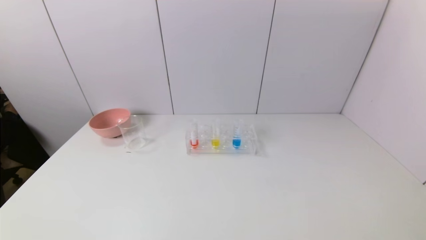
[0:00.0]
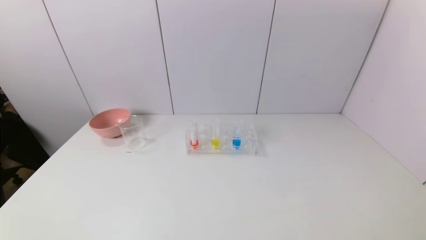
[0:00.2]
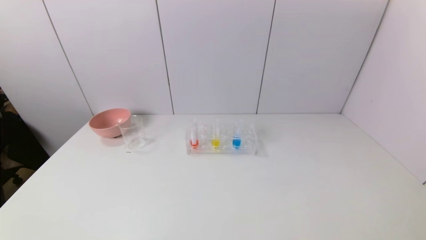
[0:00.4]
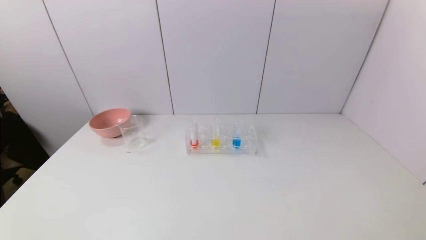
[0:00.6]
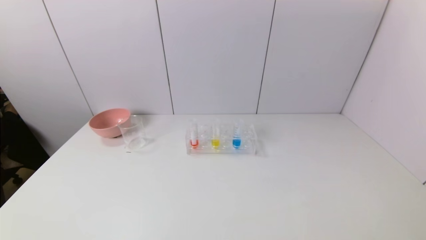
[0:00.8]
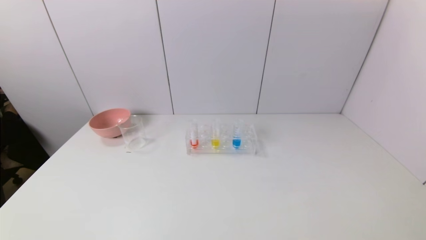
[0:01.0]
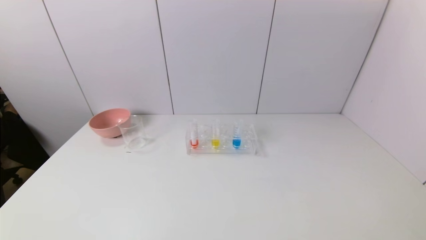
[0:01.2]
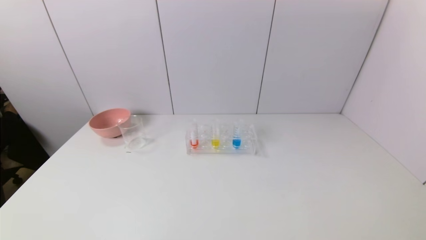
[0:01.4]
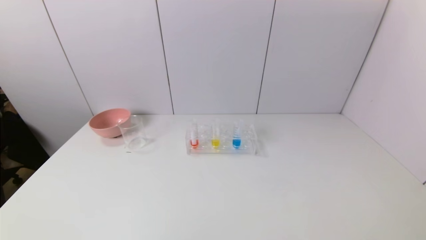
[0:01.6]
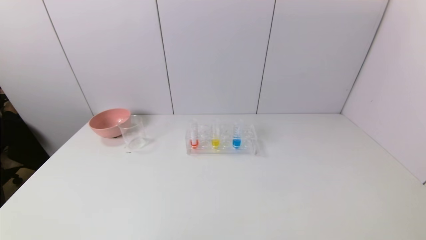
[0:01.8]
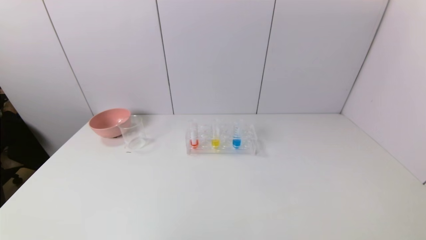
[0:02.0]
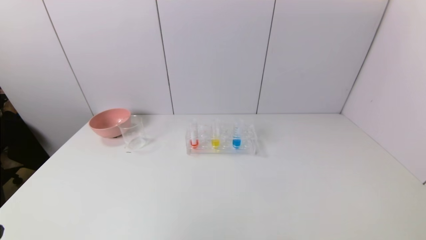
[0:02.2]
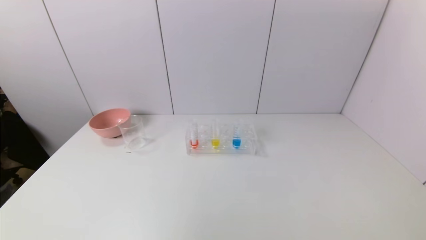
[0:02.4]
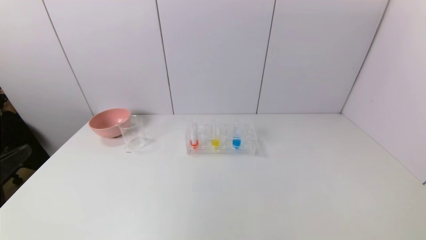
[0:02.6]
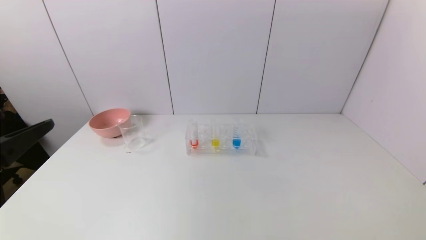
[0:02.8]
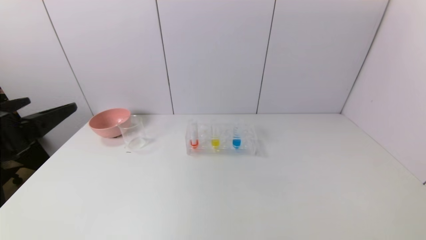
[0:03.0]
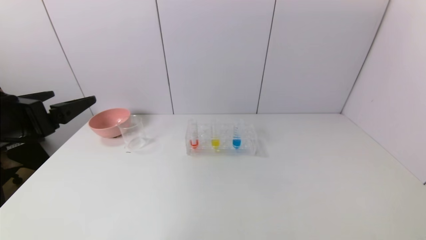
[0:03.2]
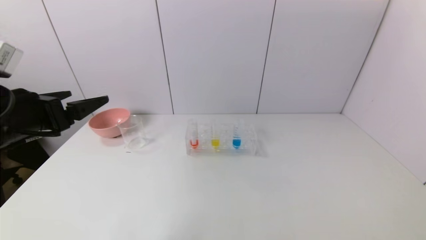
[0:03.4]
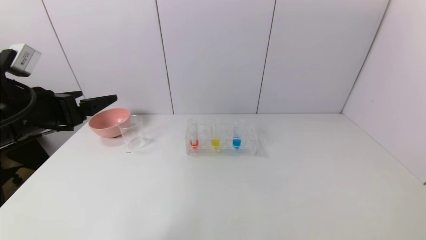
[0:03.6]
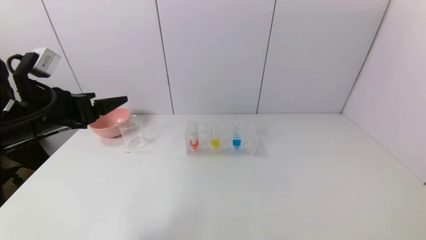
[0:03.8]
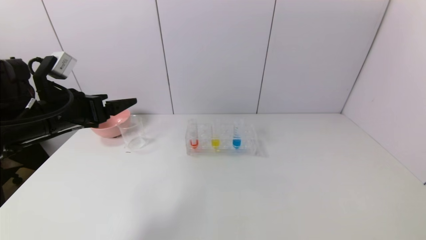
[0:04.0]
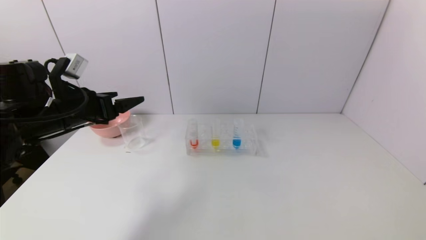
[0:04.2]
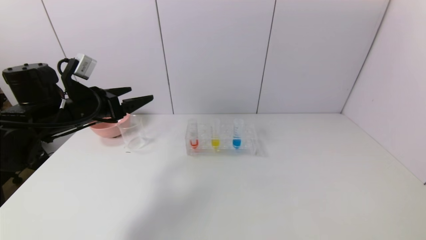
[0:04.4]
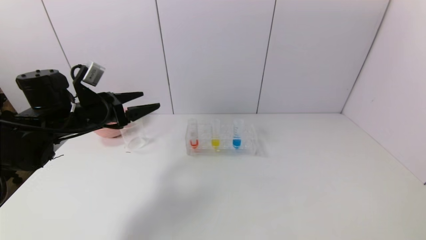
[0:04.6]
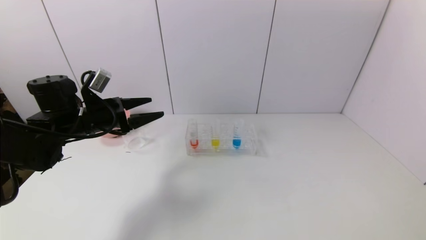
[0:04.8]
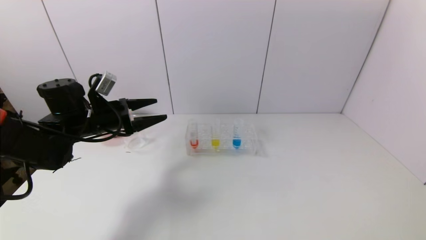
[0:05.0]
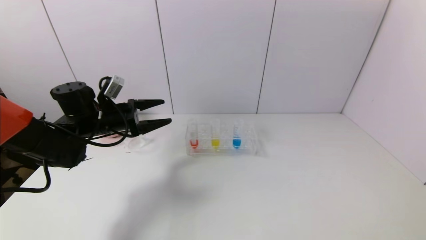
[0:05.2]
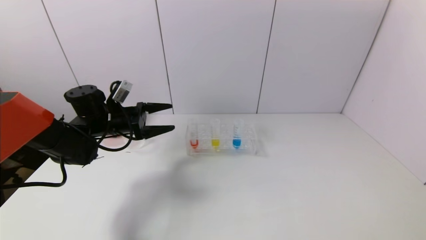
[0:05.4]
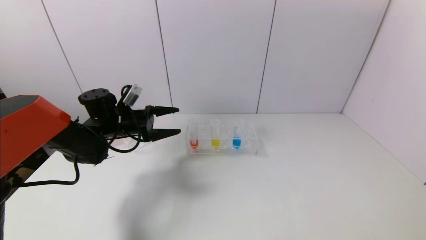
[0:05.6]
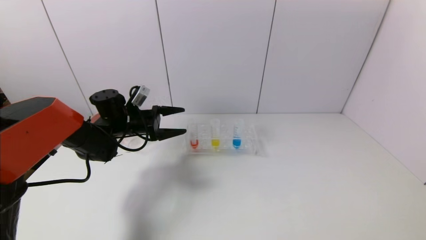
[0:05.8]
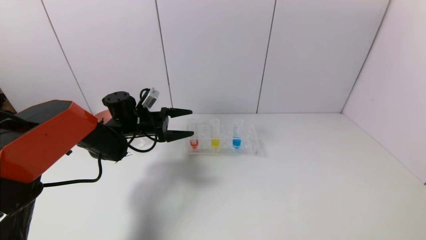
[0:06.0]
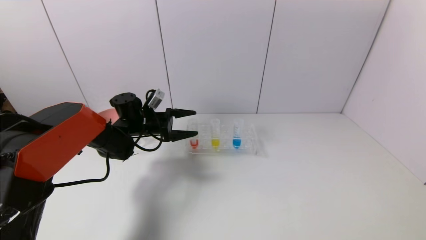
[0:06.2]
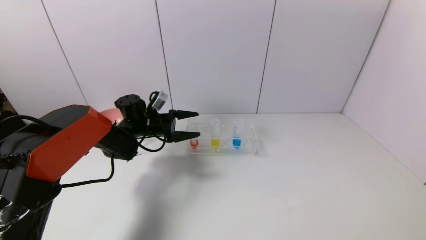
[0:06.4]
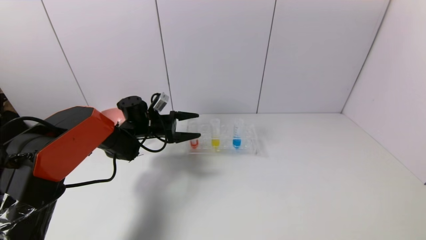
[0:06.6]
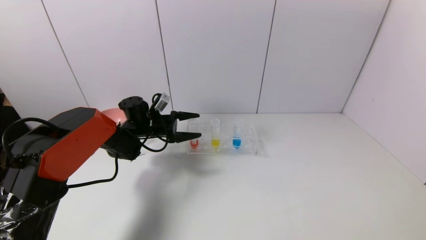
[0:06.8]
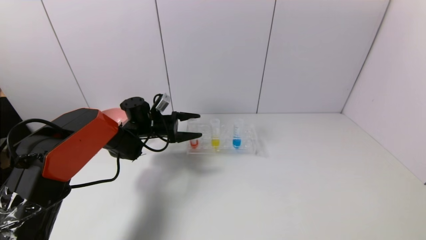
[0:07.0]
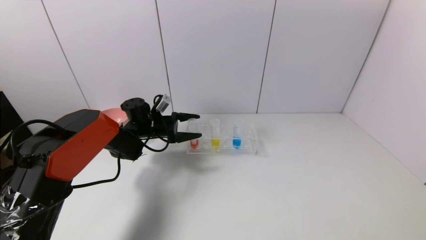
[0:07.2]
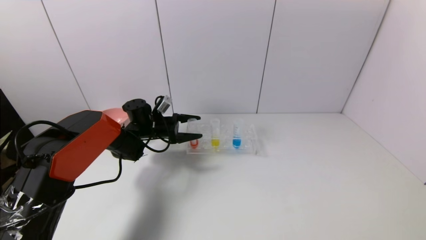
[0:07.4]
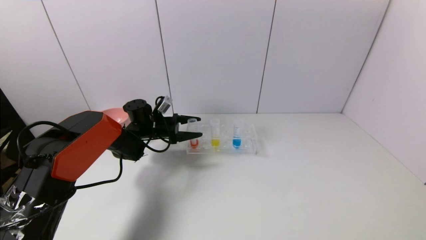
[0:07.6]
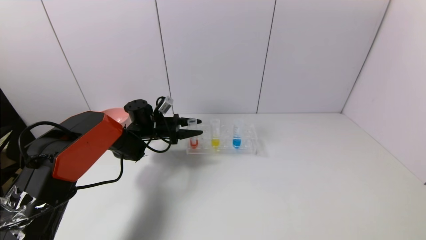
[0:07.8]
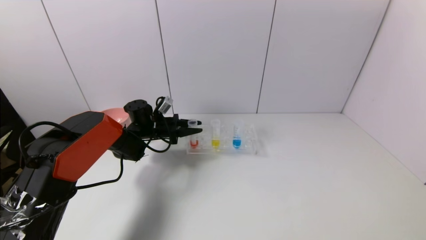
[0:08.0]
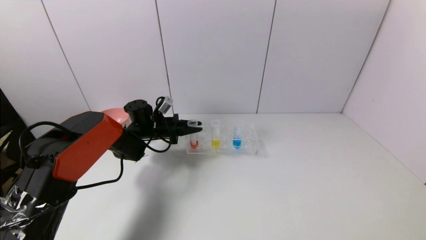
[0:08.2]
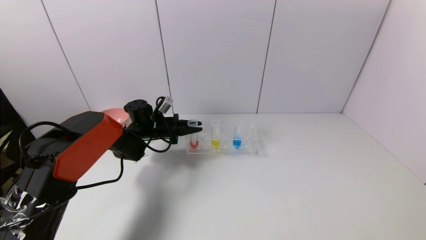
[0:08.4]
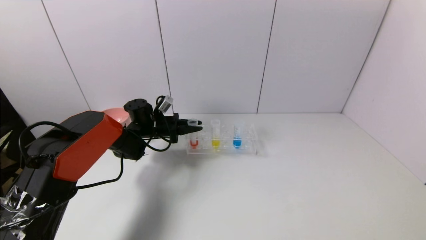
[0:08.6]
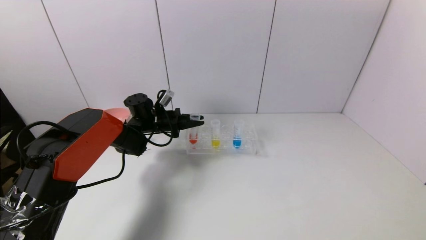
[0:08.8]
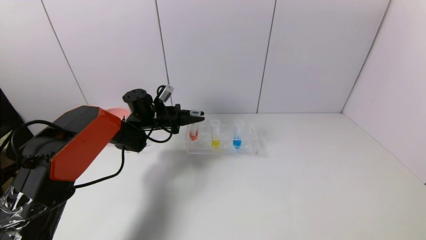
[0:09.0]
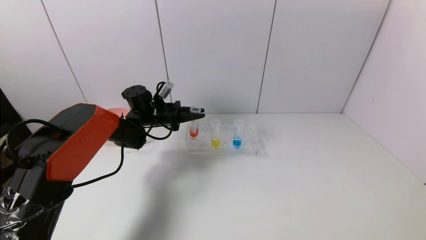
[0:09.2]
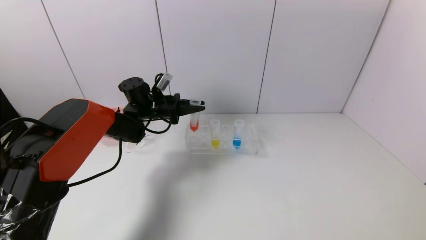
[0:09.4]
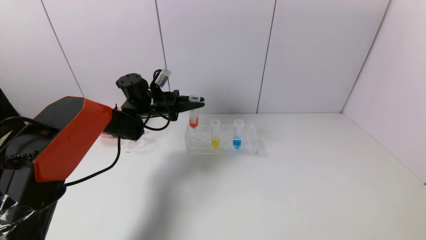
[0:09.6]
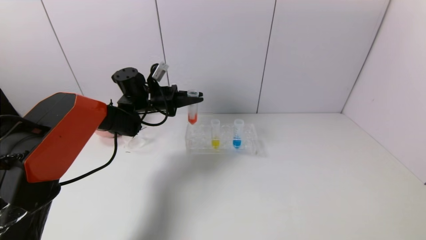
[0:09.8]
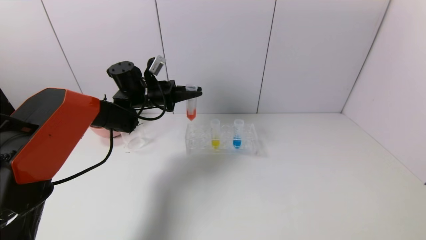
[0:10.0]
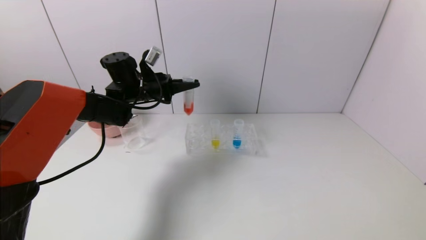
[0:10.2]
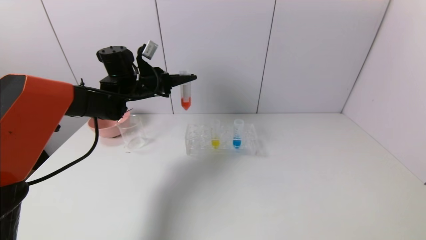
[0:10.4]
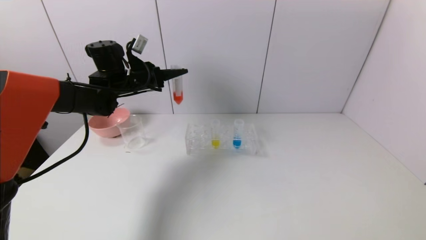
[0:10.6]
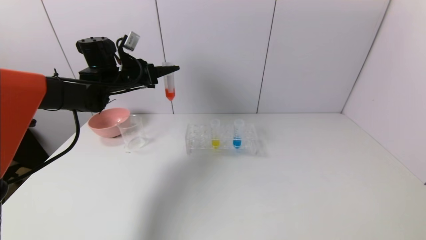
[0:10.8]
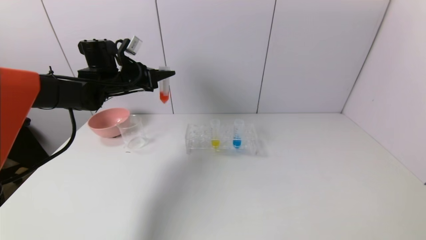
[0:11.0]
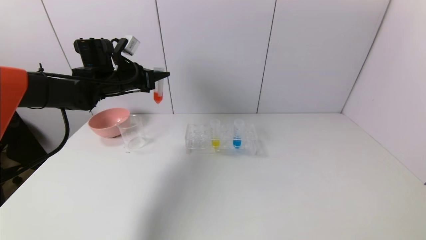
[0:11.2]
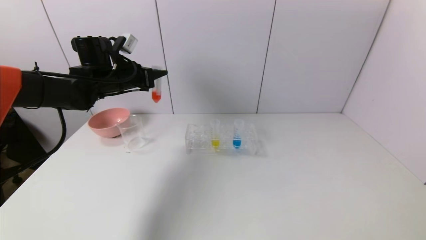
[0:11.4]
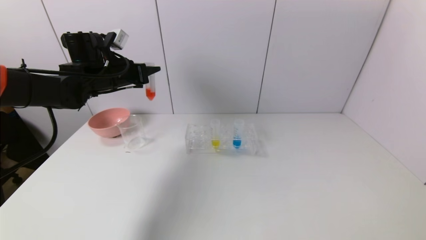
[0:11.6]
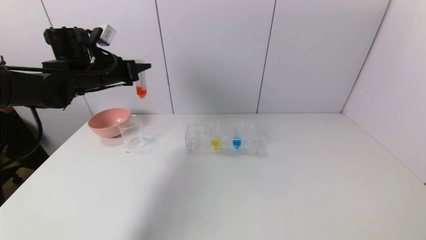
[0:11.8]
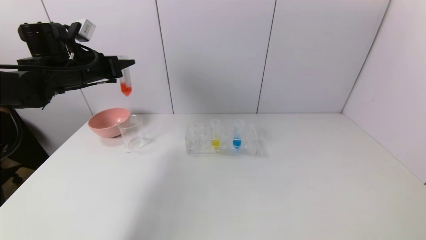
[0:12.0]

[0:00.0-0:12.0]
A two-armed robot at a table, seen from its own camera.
Task of the whole recording: pick up the test tube with red pigment and the test tube with blue pigment by grippers and pour them into the container.
Step, 0:00.0 to 0:08.2: Grasp the red reagent with the left gripper.
0:01.6 to 0:03.0: The left gripper shifts approximately 25 cm forward and upward.
0:03.0 to 0:04.4: The left gripper heads forward, covering roughly 15 cm.
0:04.4 to 0:06.0: The left gripper heads forward, downward and to the right, covering roughly 15 cm.
0:06.0 to 0:07.6: The left gripper changes place by roughly 5 cm.
0:07.6 to 0:09.0: The left gripper closes its fingers.
0:09.0 to 0:10.4: The left gripper shifts roughly 10 cm upward.
0:10.4 to 0:12.0: The left gripper travels to the left and backward by approximately 10 cm.

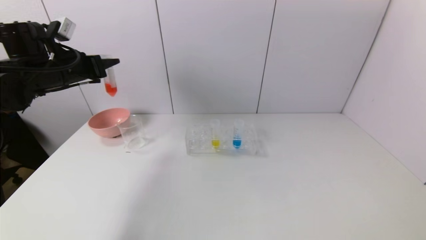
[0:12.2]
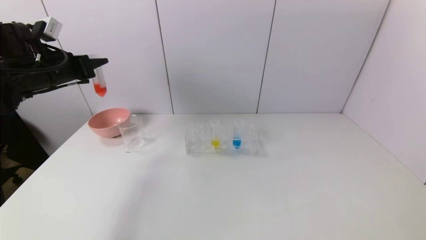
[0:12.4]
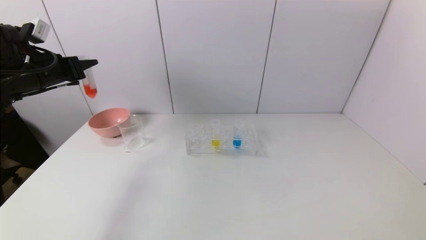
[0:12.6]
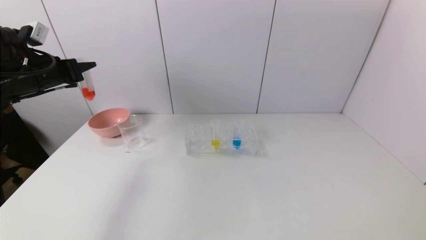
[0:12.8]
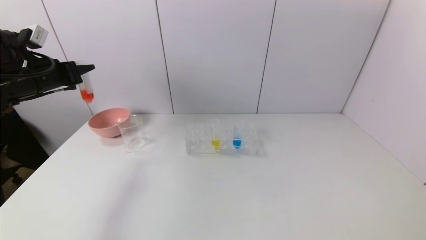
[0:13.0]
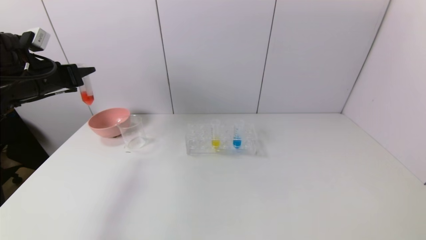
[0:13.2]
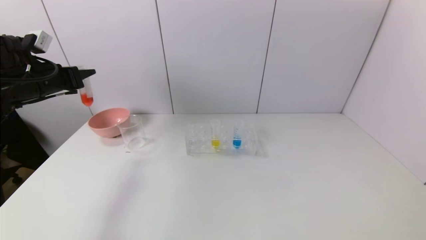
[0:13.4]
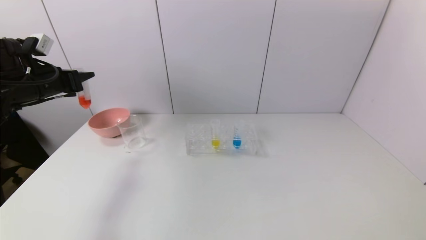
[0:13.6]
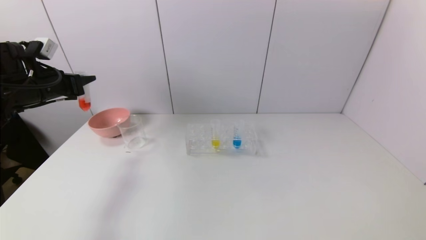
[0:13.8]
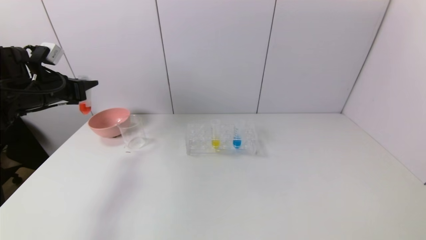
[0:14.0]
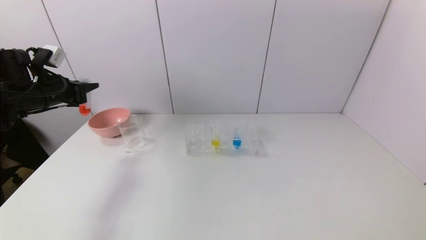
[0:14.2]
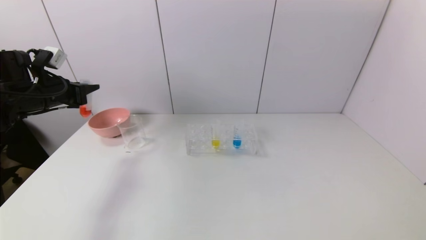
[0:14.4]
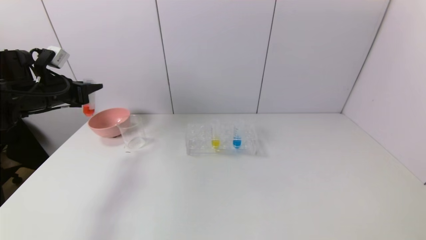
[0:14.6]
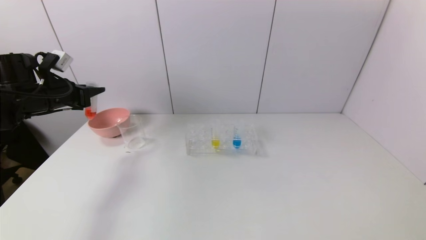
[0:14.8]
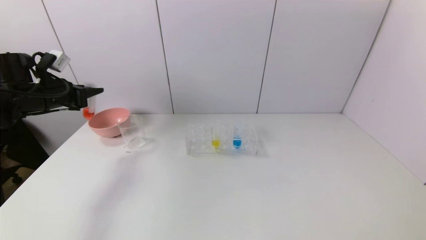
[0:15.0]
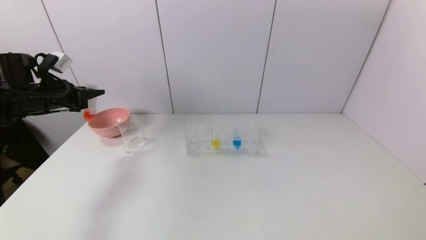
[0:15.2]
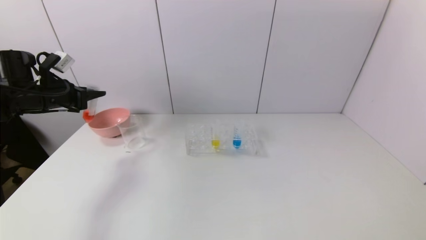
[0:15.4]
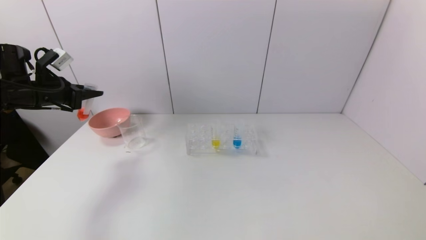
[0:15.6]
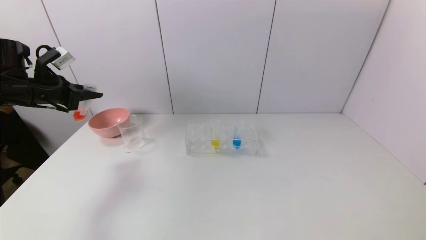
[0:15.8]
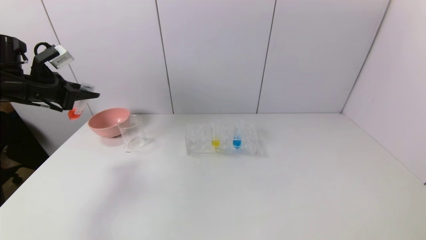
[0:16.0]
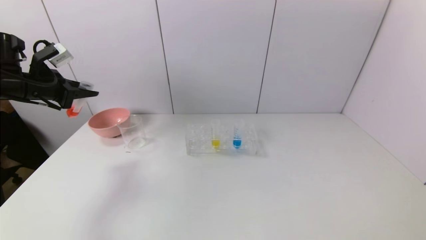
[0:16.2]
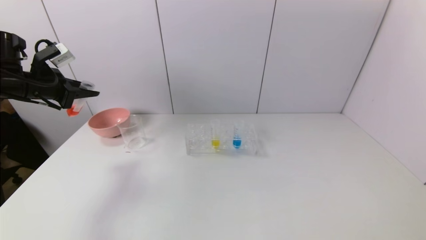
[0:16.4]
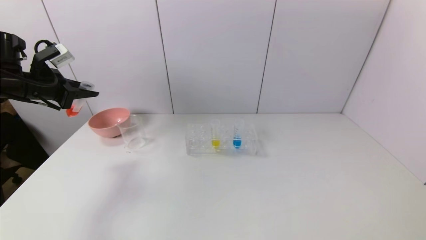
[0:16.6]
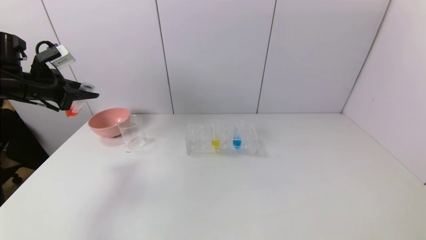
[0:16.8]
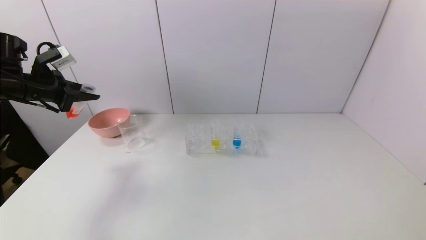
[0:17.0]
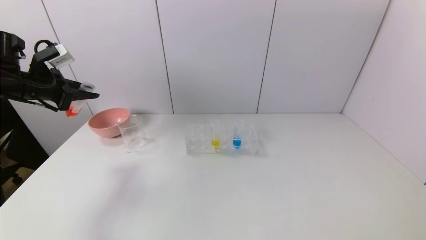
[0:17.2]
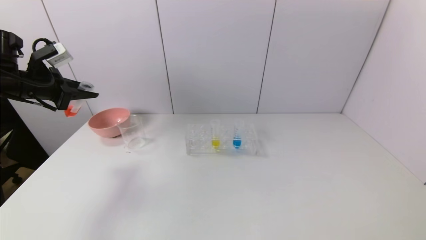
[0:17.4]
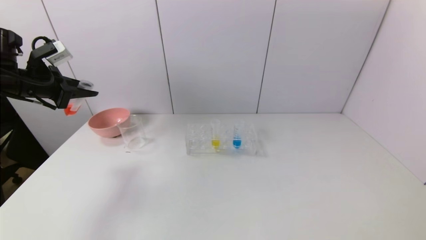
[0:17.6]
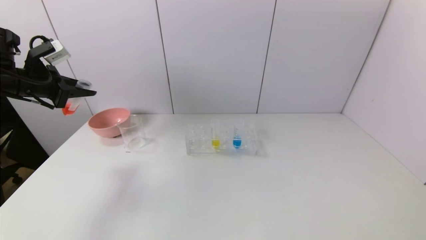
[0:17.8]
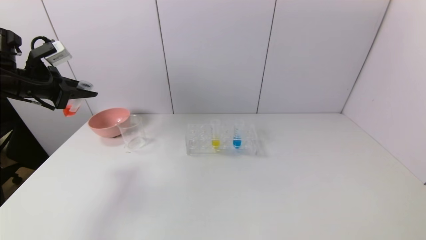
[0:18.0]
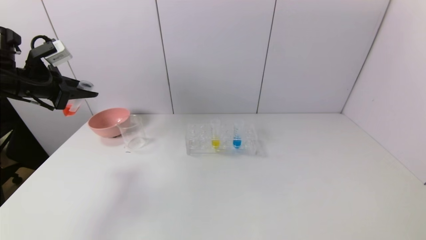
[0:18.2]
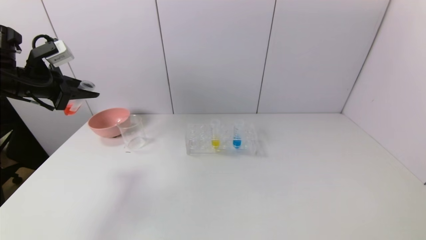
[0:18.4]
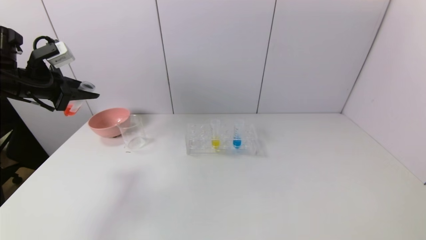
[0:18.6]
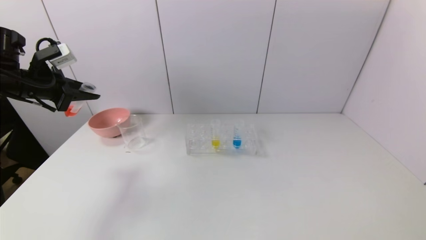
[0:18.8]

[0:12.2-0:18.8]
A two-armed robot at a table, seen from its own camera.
Task of the whole recording: pick up the test tube with red pigment and the test tube with blue pigment by grippers and pour them into the container.
0:12.2 to 0:13.8: The left gripper shifts by roughly 5 cm.
0:13.8 to 0:15.4: The grippers make only small movements.
0:17.2 to 0:18.8: There are only small adjustments of the grippers.
